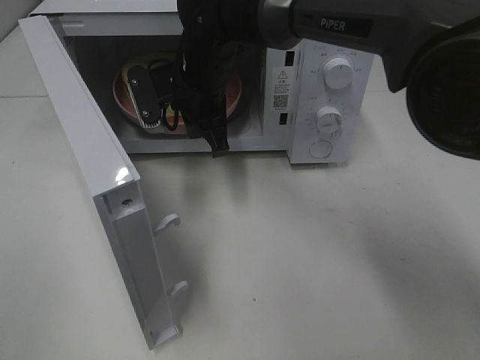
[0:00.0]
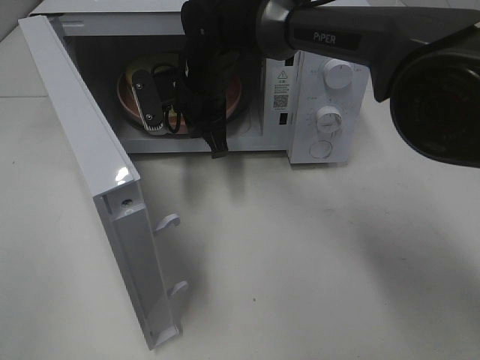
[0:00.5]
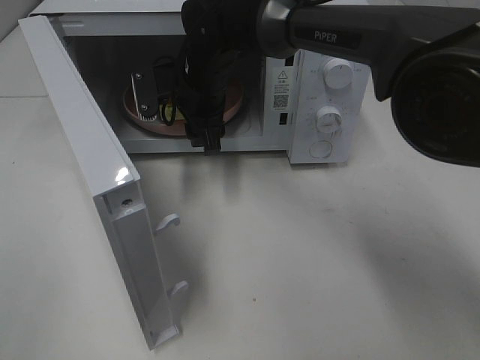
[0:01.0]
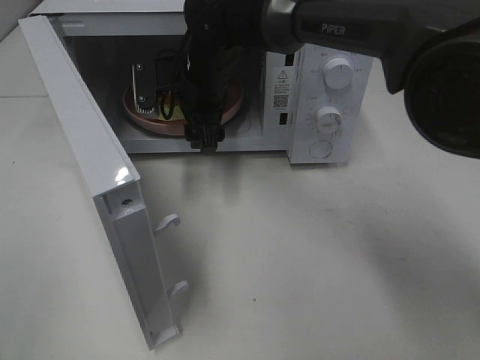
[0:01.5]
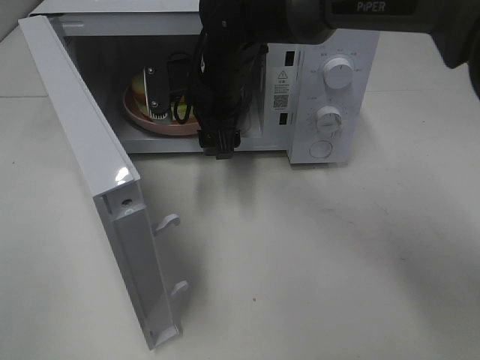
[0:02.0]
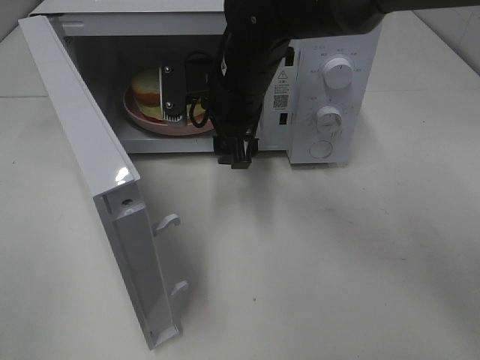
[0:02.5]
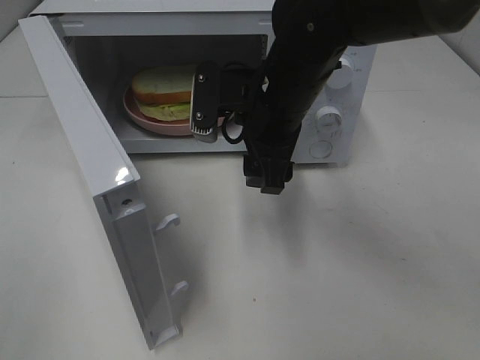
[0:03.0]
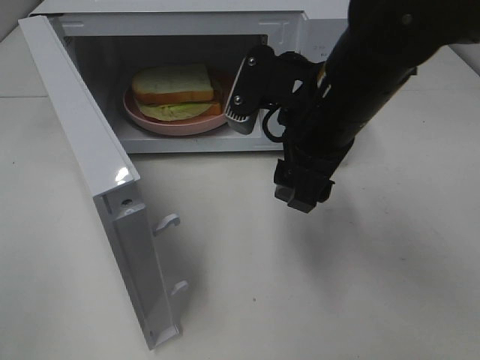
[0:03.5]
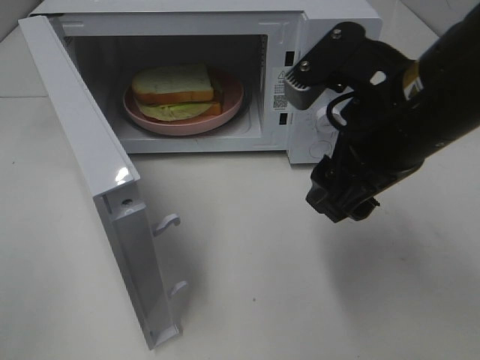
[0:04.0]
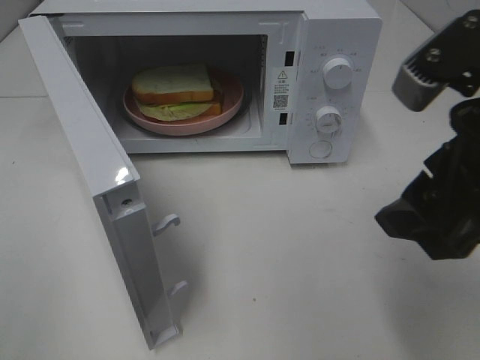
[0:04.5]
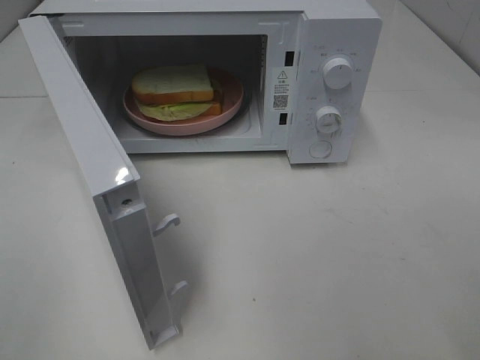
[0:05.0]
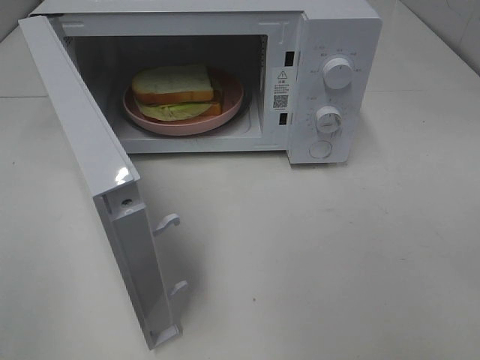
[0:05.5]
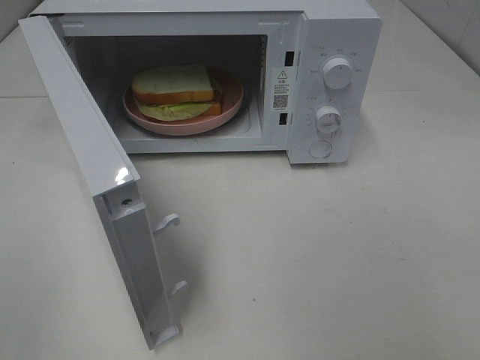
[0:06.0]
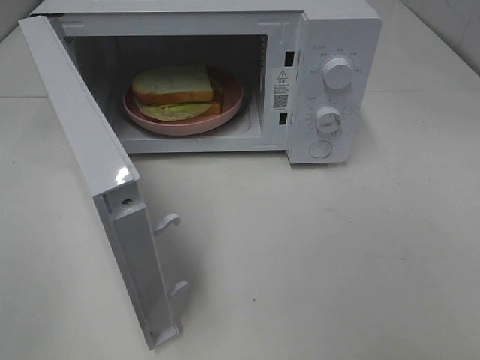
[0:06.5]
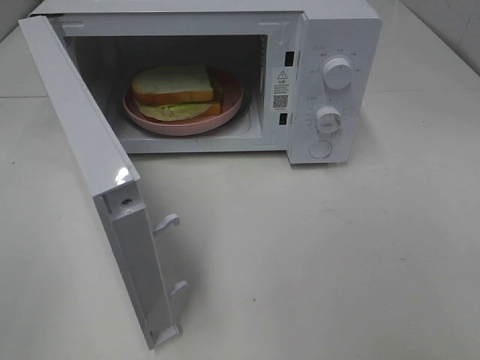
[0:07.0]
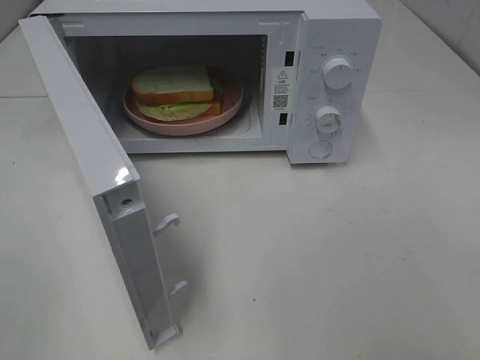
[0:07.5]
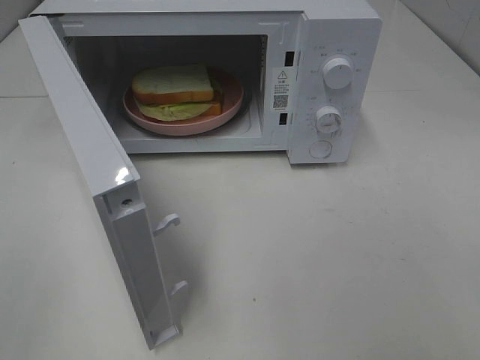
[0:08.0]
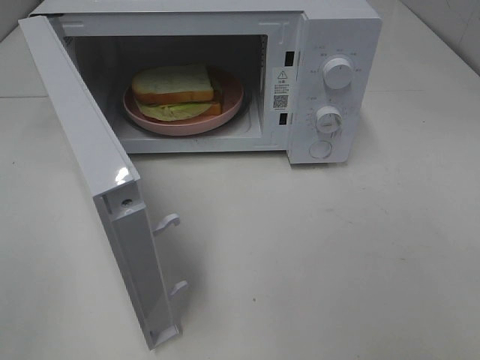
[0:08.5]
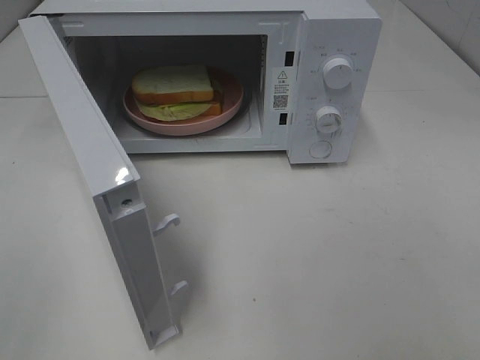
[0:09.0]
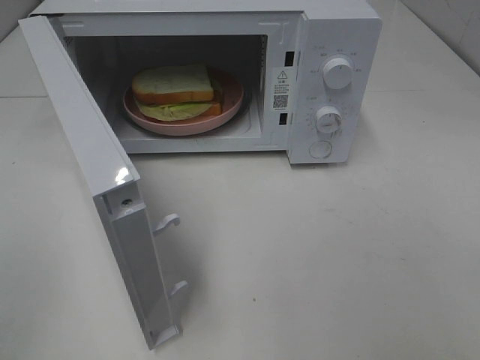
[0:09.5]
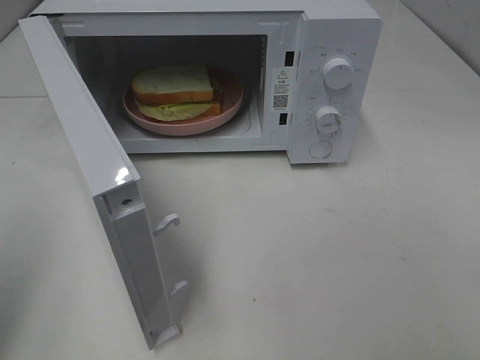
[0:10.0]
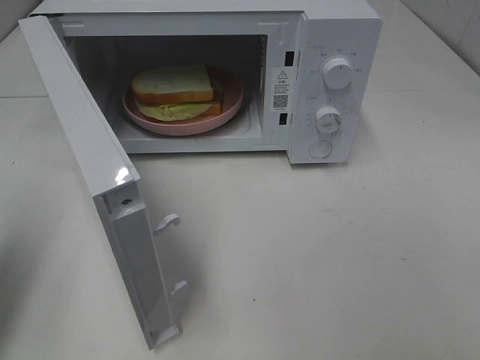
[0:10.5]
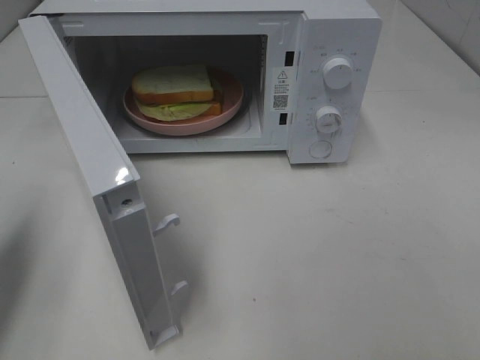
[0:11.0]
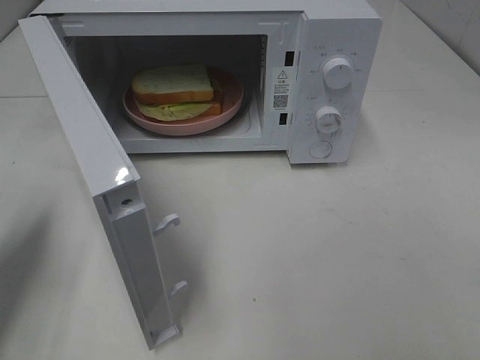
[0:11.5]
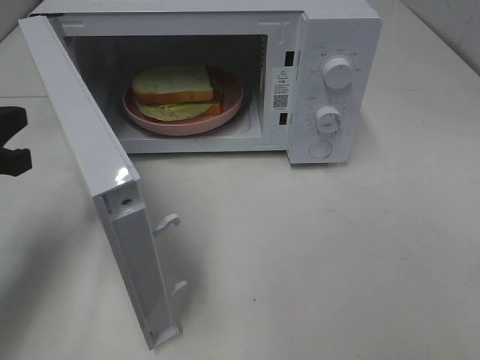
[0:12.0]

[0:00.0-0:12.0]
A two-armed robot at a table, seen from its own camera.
Task of the whole recording: Heat Sandwich.
0:00.0 to 0:02.0: The right gripper opens.
0:02.0 to 0:04.0: The right gripper heads backward and to the right, covering approximately 25 cm.
0:04.0 to 0:06.0: The right gripper moves backward and to the right, approximately 25 cm.
0:10.0 to 0:12.0: The left gripper travels forward and downward by roughly 20 cm.

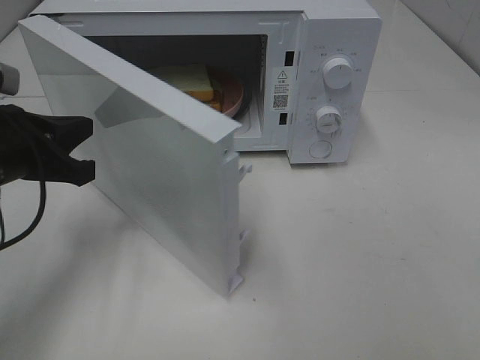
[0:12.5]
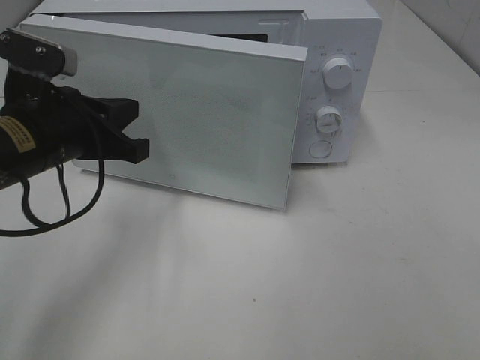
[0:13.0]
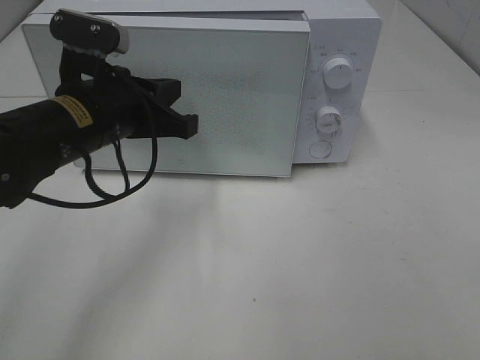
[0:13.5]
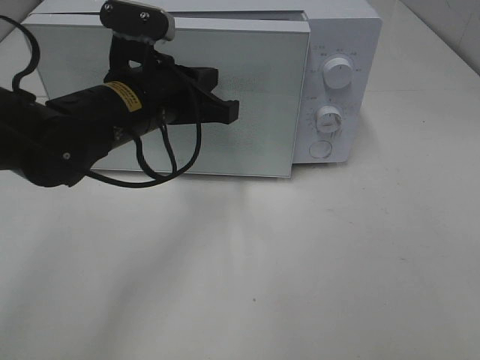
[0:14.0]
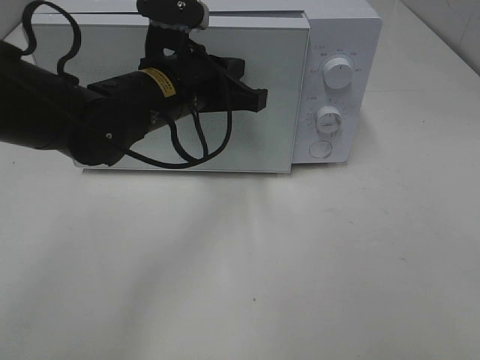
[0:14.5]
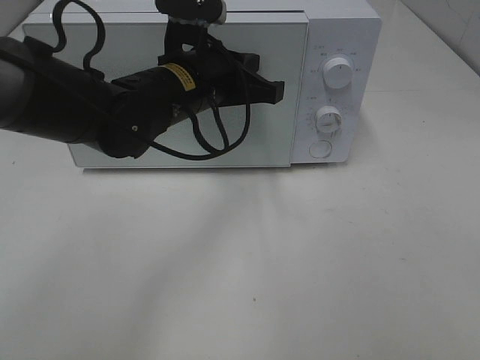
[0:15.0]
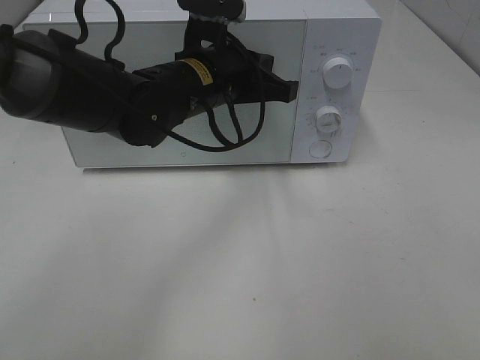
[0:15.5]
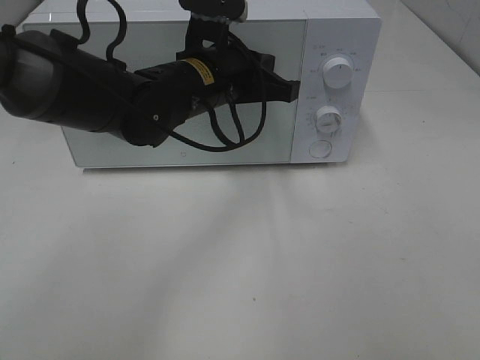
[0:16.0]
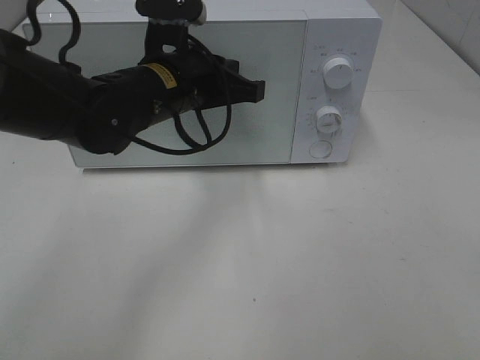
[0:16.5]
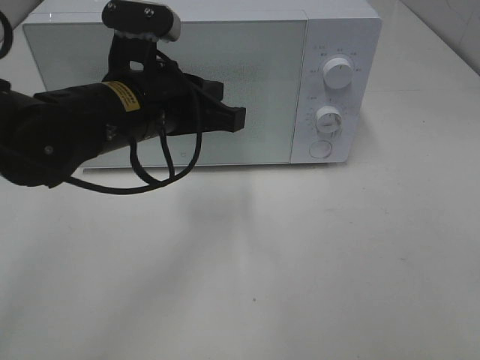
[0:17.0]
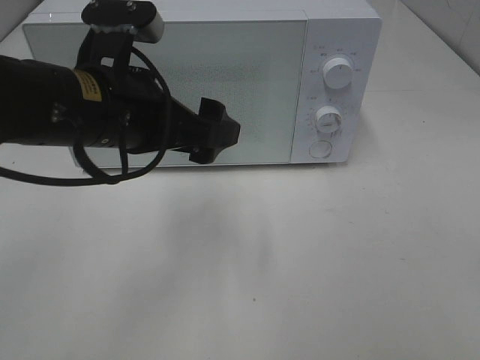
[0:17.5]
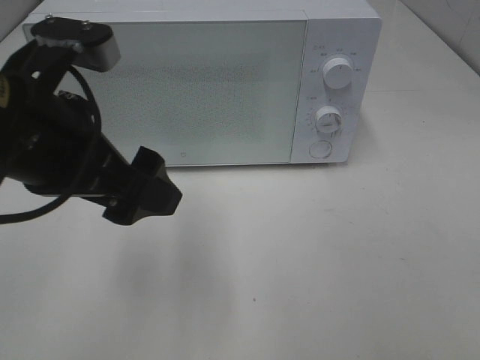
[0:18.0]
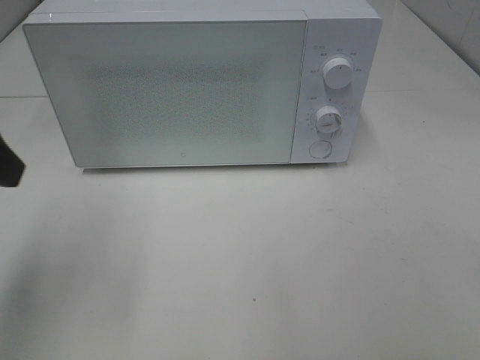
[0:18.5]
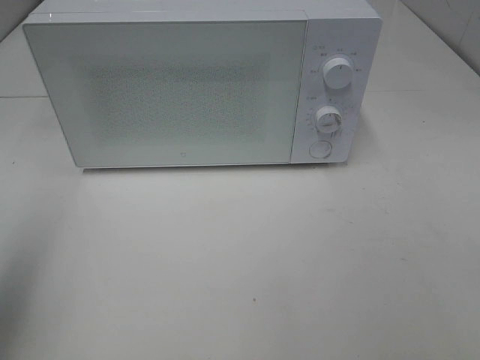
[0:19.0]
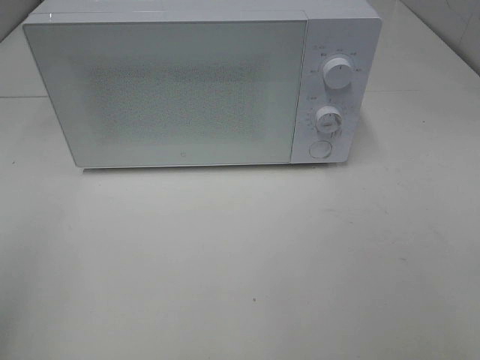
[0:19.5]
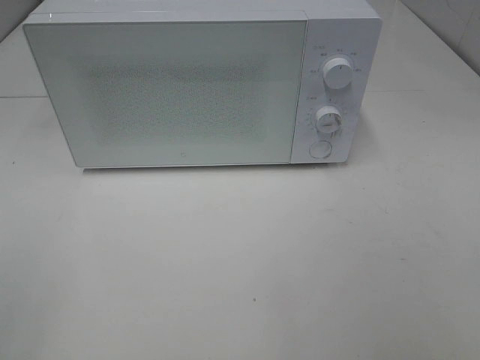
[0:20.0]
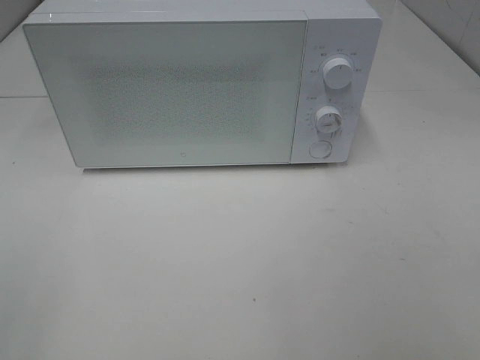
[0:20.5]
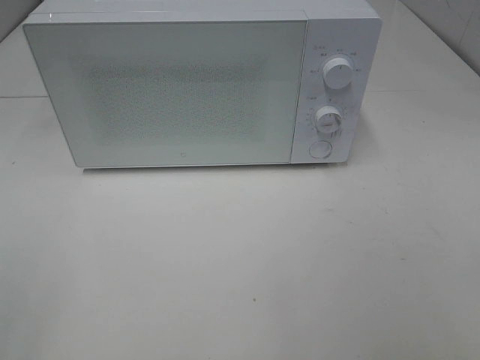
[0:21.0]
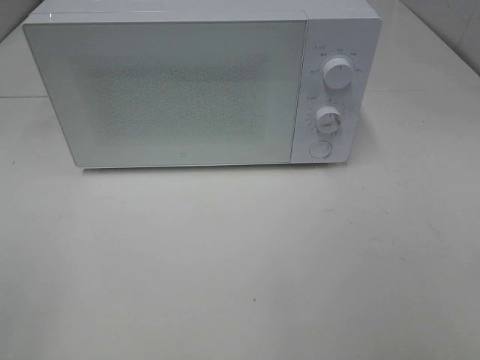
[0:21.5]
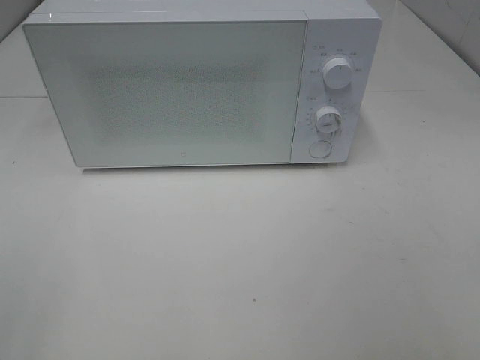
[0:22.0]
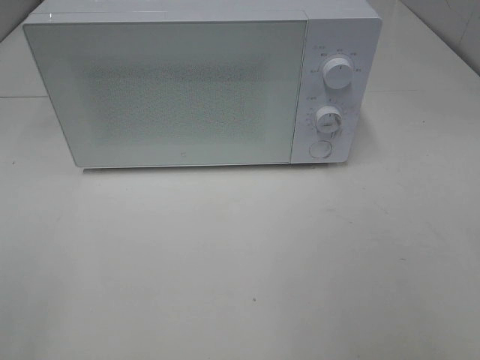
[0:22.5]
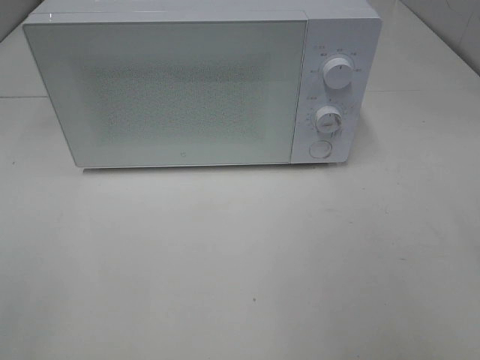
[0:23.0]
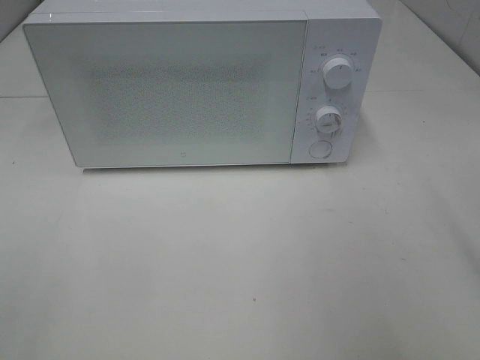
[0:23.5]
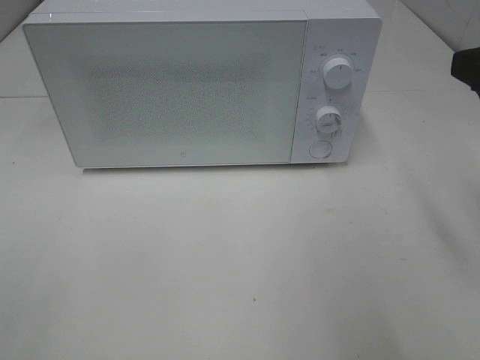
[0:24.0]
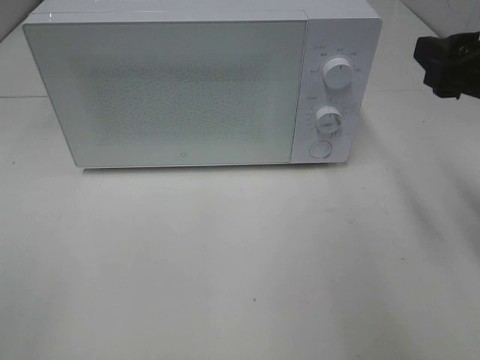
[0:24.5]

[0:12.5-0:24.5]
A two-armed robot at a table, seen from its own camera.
Task of the whole recording: Heat Sandwich.
Step, 0:12.5 to 0:16.5: Left hand: close the microwave door.
0:12.5 to 0:14.5: The left gripper goes some 20 cm to the right and forward.
0:14.5 to 0:16.5: The grippers stay close to where they were, moving slightly.
0:16.5 to 0:18.5: The left gripper heads to the left, backward and upward, covering about 25 cm, and opens its fingers.
0:18.5 to 0:20.5: The left gripper shifts roughly 20 cm backward.
0:22.5 to 0:24.5: The right gripper heads forward, covering approximately 20 cm.

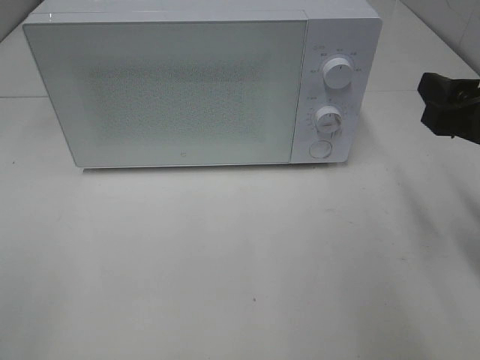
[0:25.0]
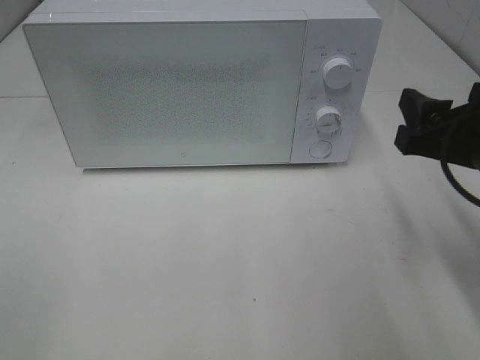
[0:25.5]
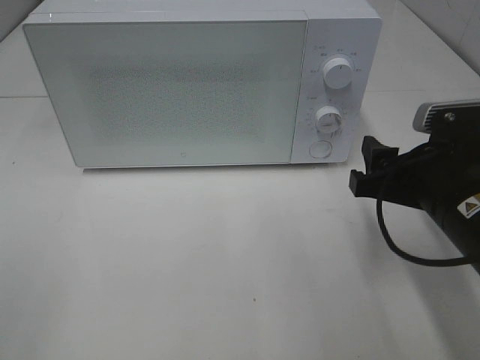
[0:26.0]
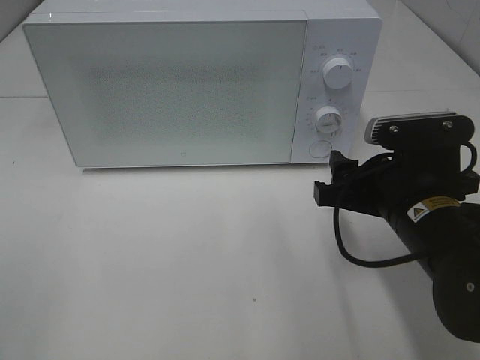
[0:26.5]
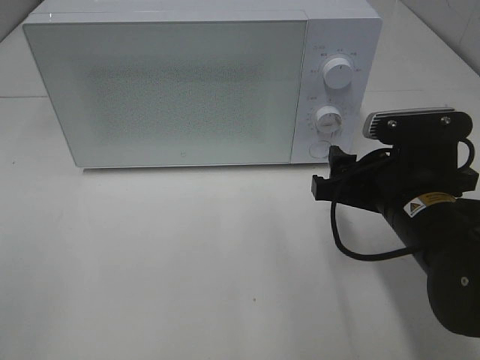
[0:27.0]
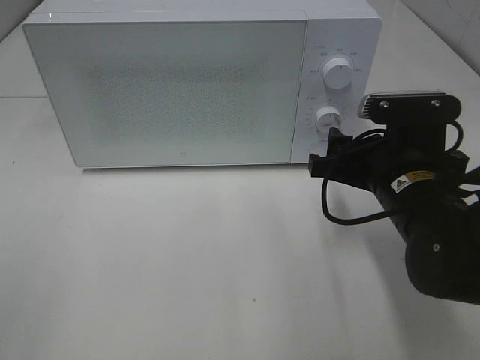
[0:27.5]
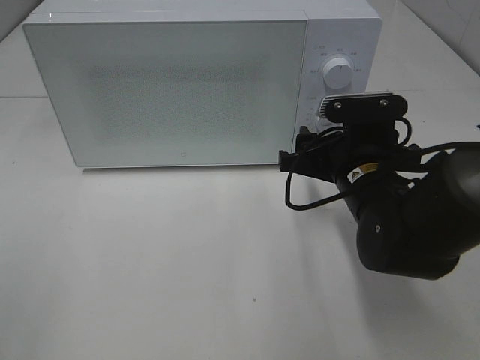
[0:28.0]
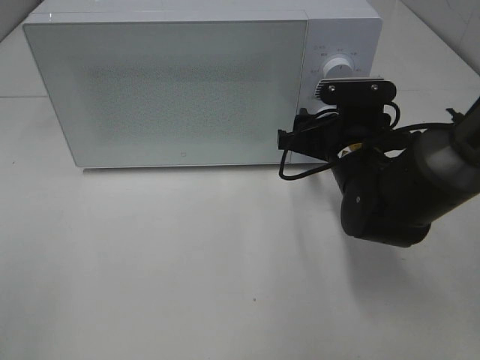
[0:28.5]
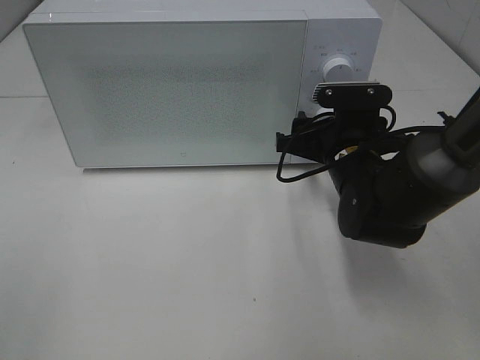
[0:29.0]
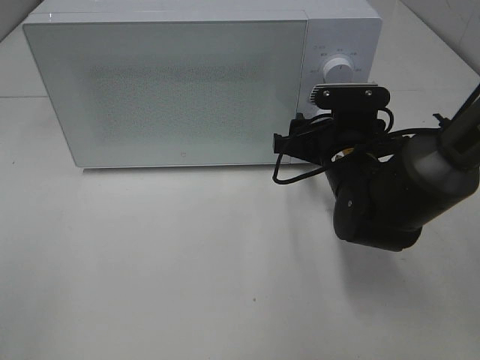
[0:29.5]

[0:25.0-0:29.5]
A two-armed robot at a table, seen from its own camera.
Task of the whole recording: Heat Sandwich.
0:25.0 to 0:27.0: The right gripper moves to the left and downward, about 10 cm.
0:27.0 to 0:29.5: The right gripper is displaced forward by approximately 10 cm.
